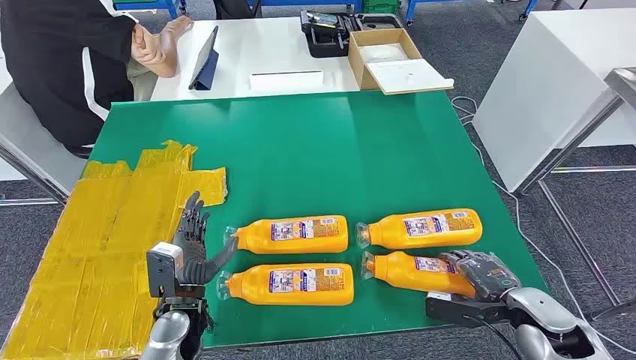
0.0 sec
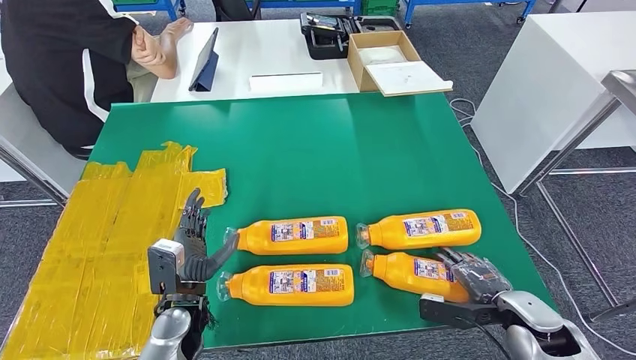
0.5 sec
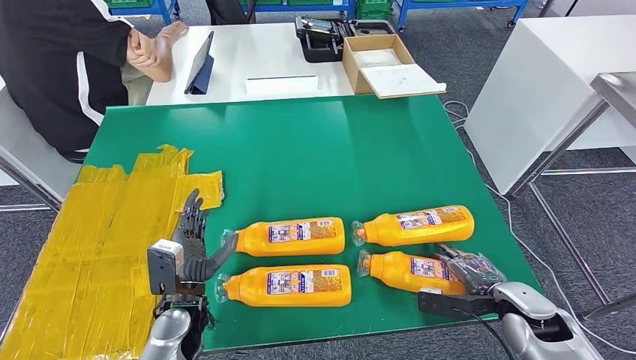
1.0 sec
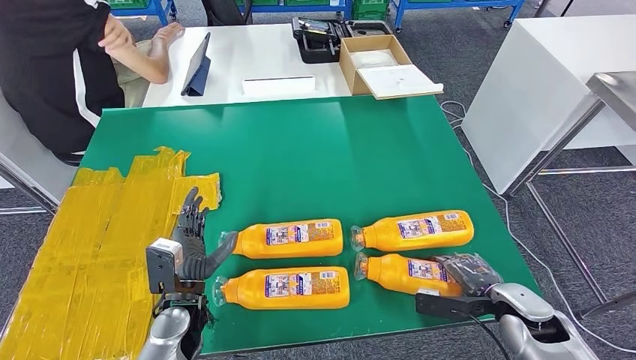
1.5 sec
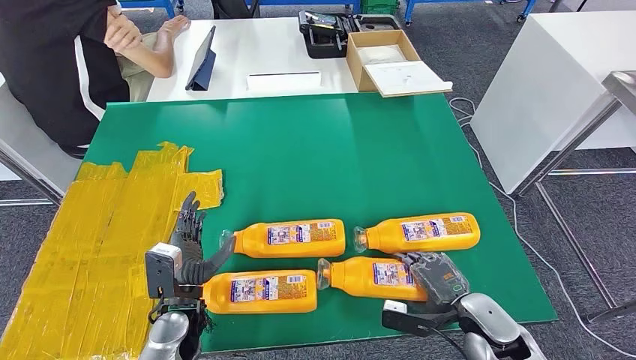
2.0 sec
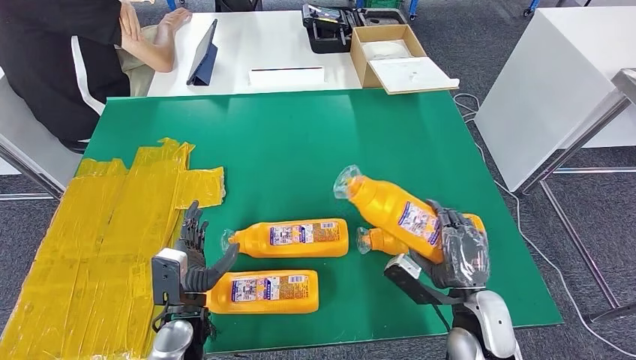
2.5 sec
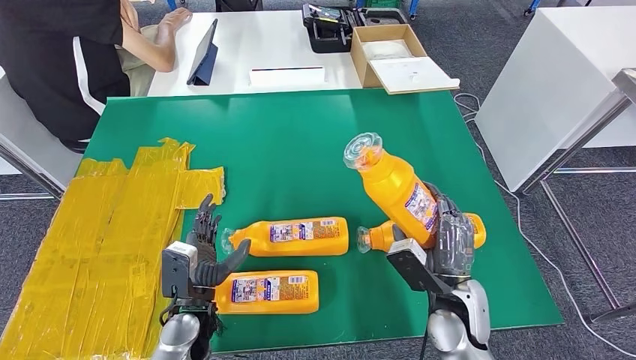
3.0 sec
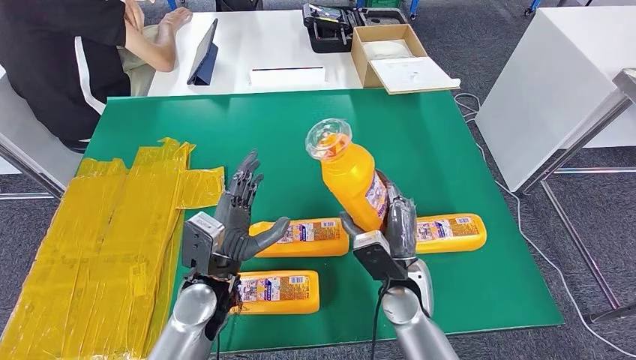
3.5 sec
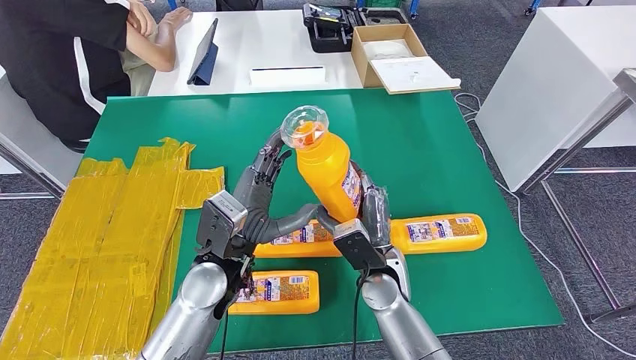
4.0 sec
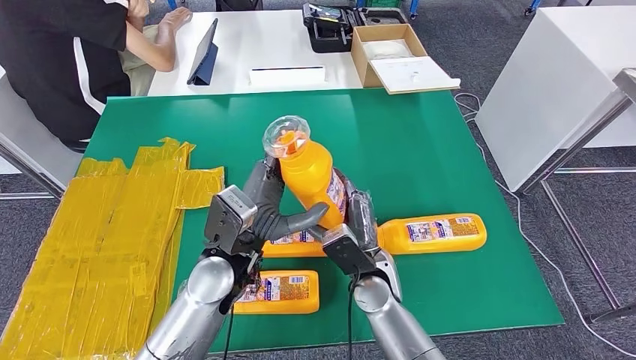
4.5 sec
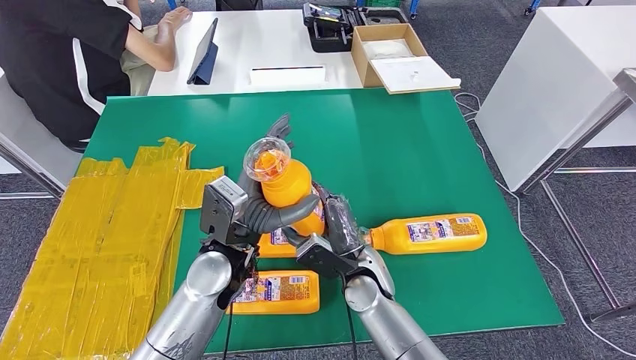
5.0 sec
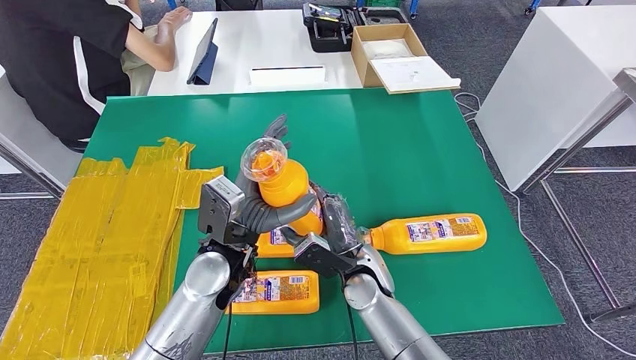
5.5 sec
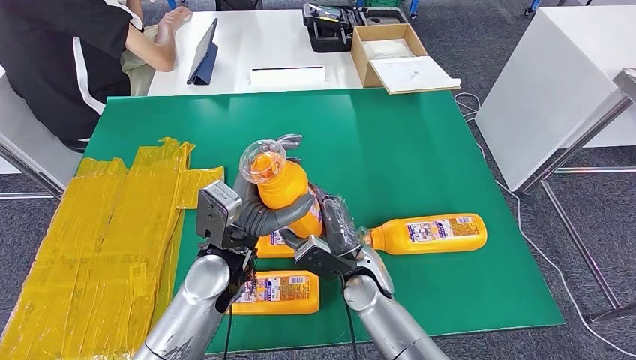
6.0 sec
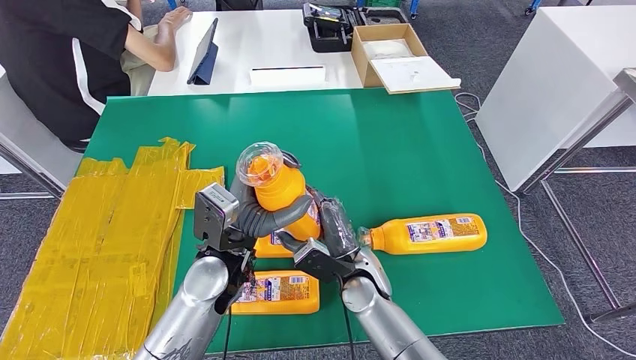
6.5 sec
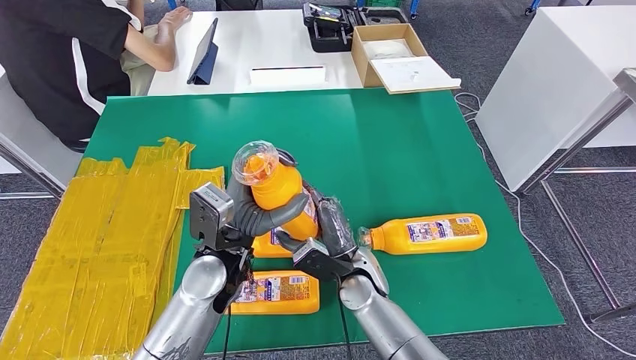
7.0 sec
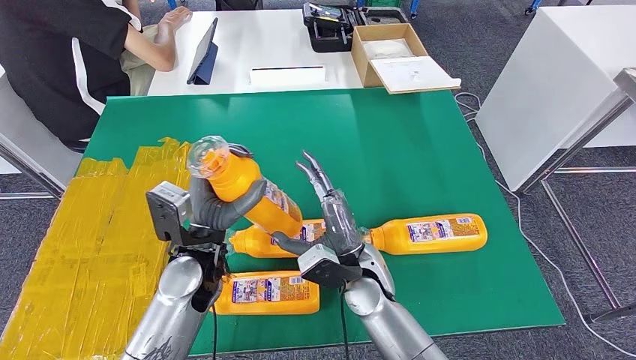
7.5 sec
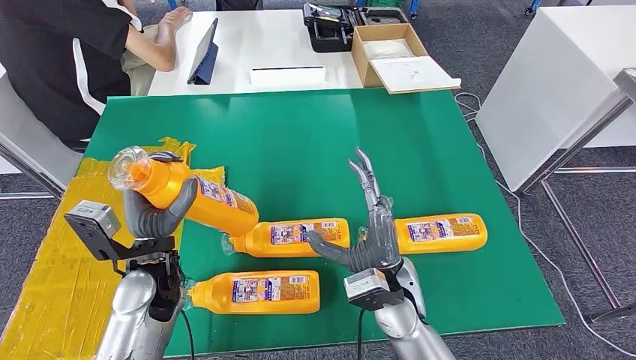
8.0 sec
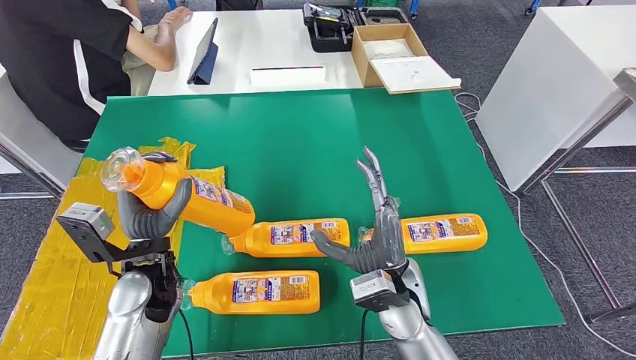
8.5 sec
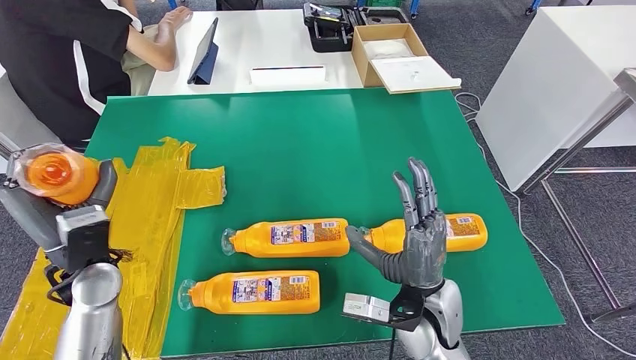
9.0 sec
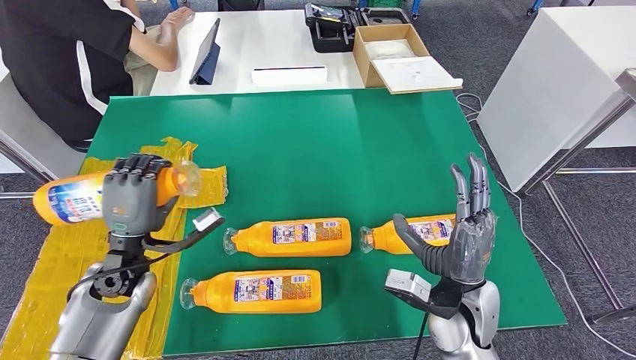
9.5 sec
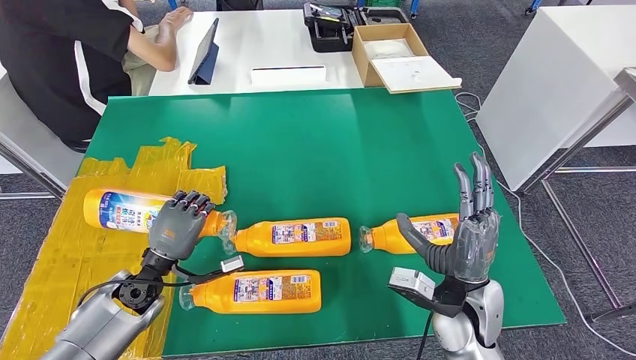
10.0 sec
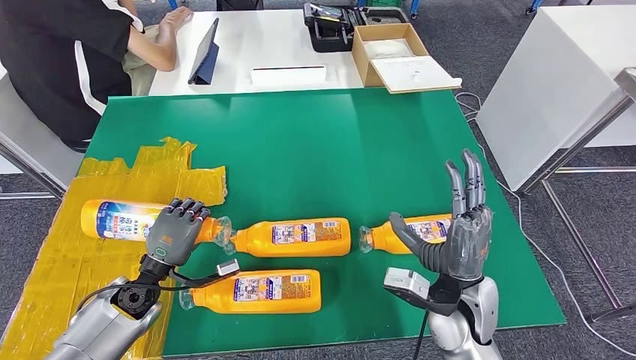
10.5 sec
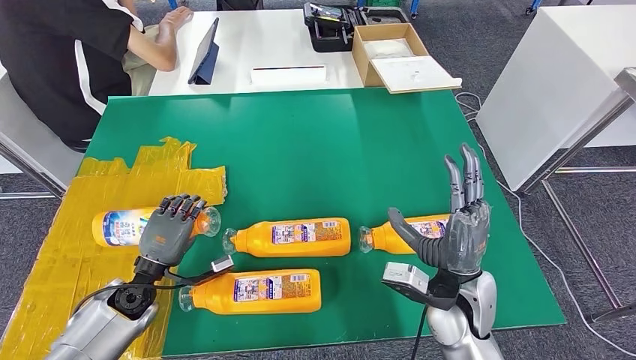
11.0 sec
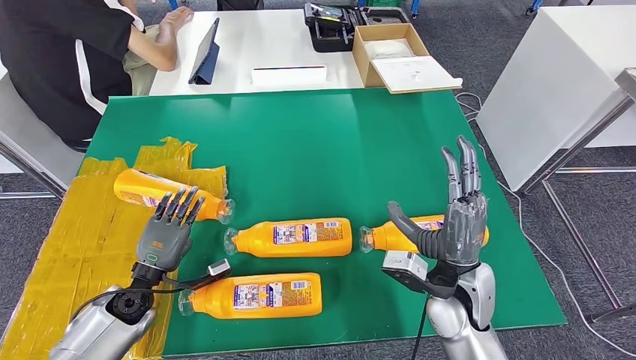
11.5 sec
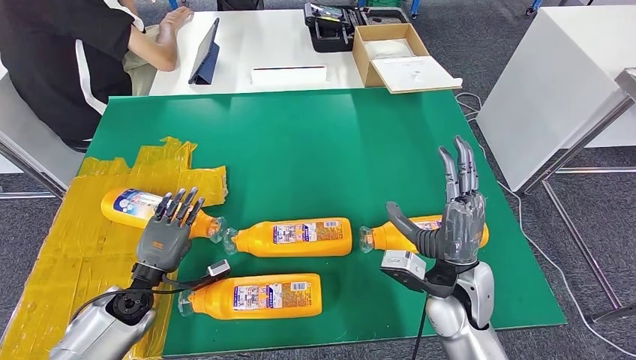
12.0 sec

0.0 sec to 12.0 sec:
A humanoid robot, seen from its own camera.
Step, 0.0 sec to 4.0 sec: Take the fast-moving consumer goods bottle from the table.
6.0 sec to 8.0 sec: The right hand is displaced upward by some 5 cm, while the left hand shifts approximately 10 cm to the left.
8.0 sec to 10.0 sec: The left hand shifts about 10 cm downward and to the left. The right hand travels to the right by roughly 10 cm.
10.0 sec to 12.0 sec: There are only small adjustments of the hands.

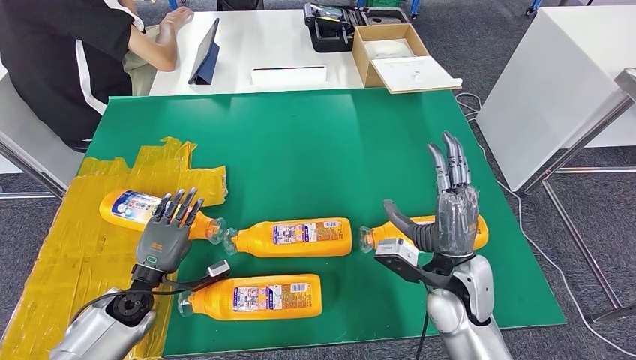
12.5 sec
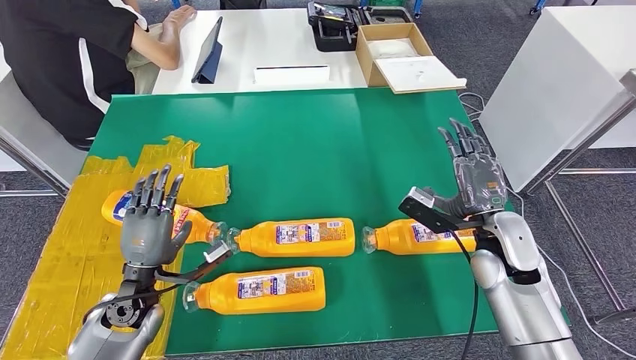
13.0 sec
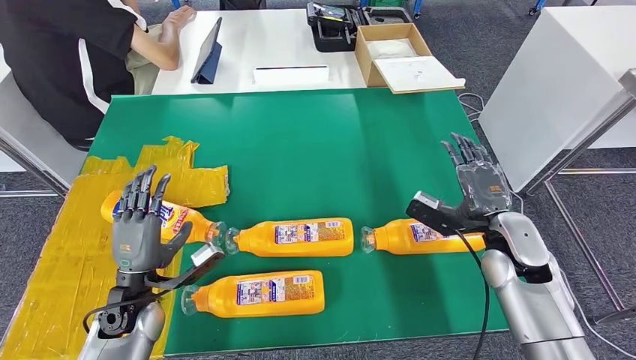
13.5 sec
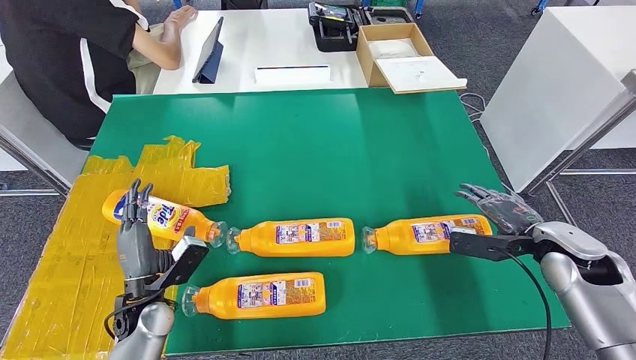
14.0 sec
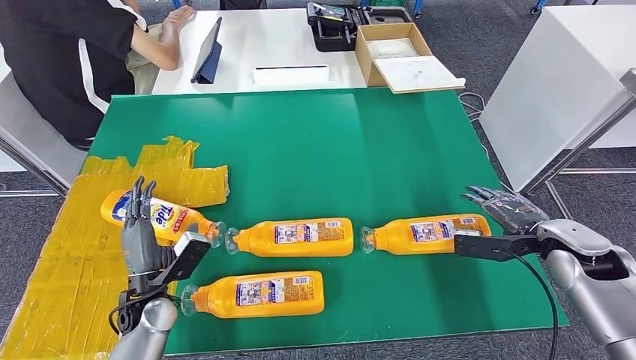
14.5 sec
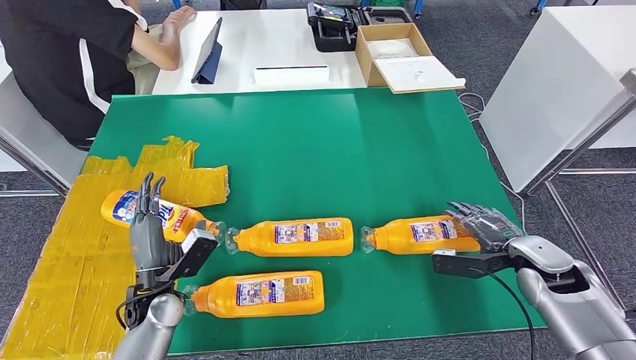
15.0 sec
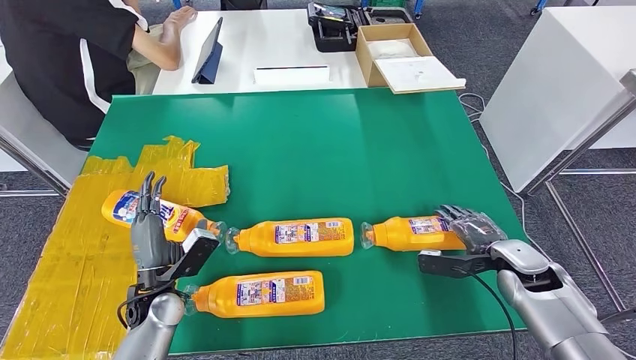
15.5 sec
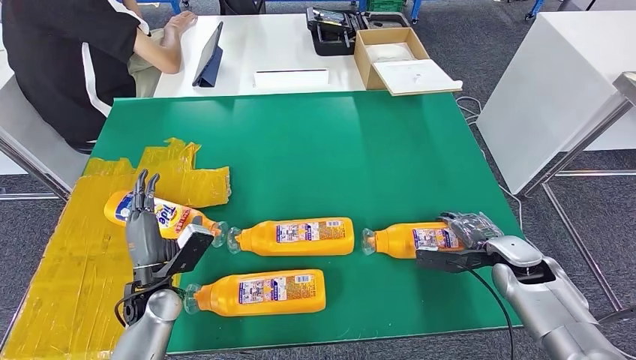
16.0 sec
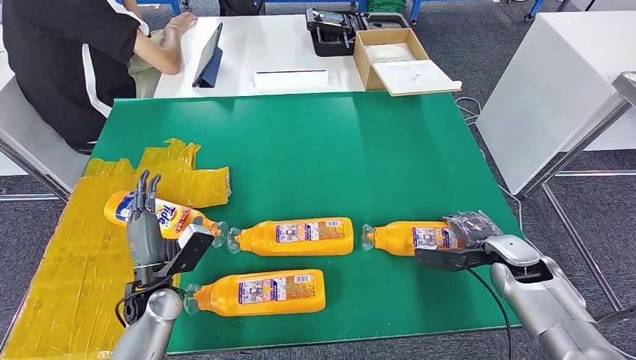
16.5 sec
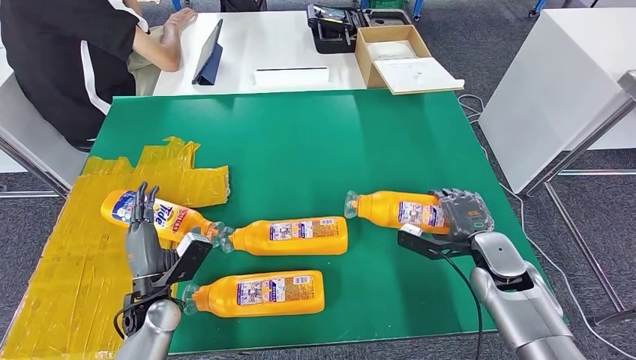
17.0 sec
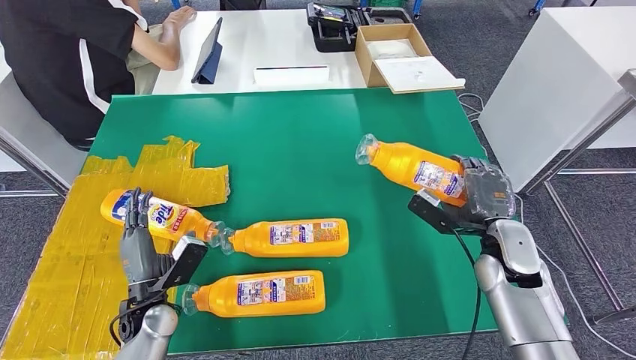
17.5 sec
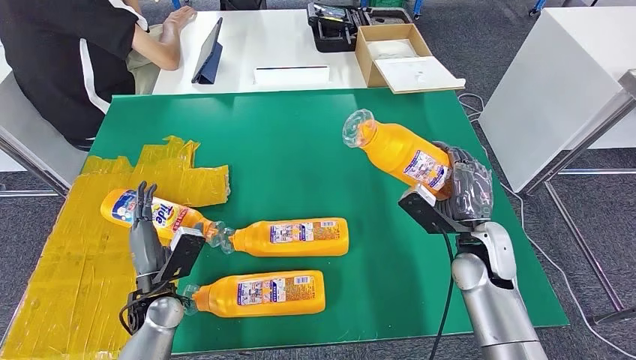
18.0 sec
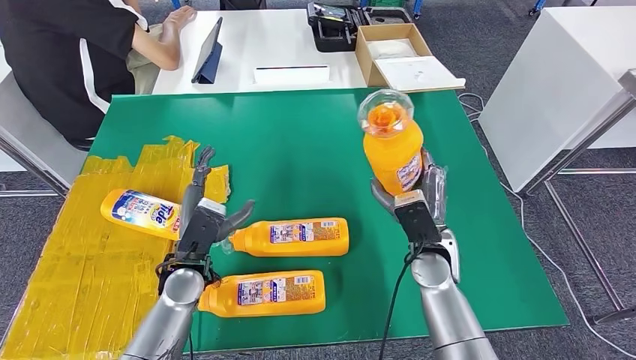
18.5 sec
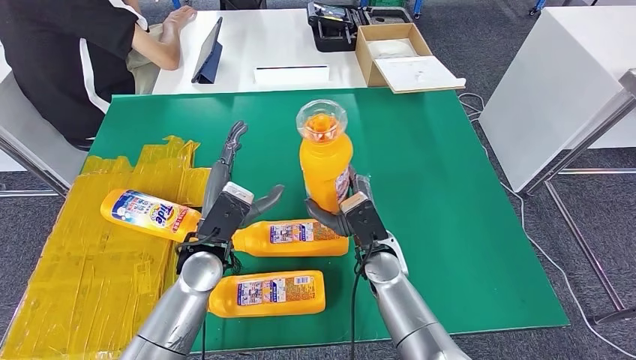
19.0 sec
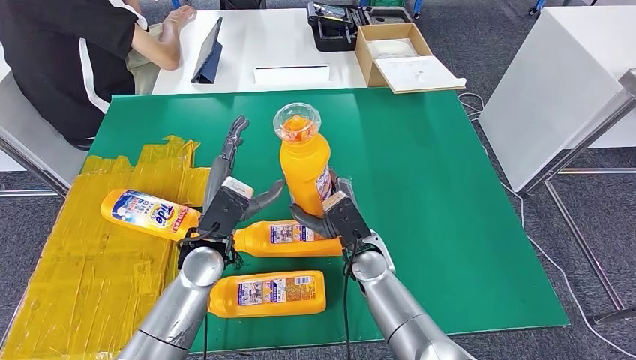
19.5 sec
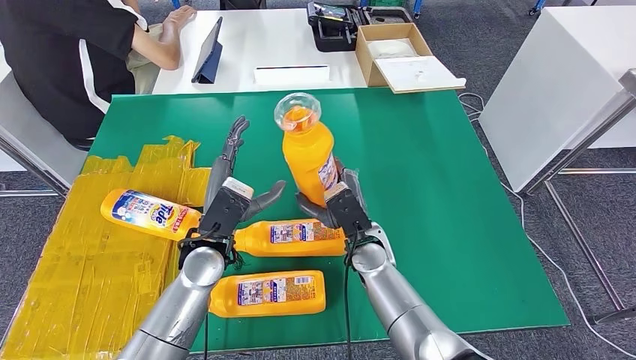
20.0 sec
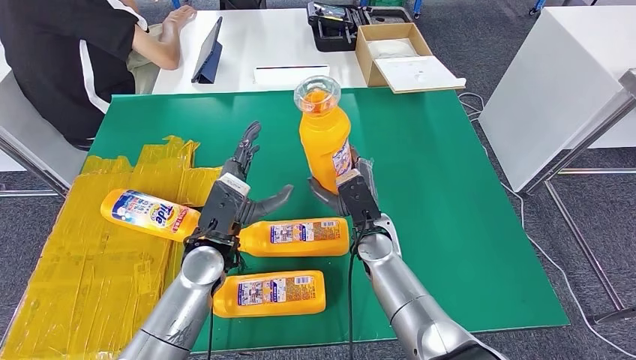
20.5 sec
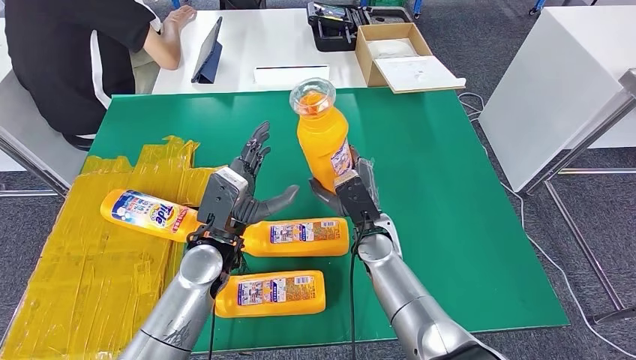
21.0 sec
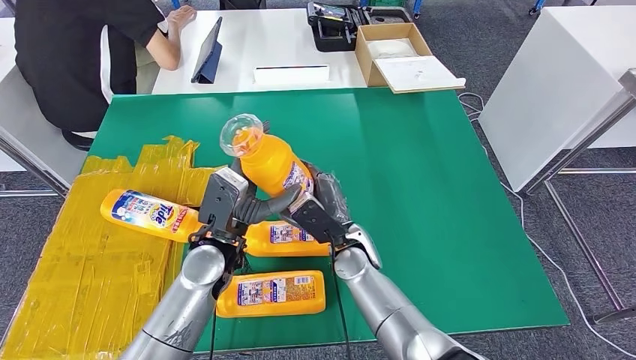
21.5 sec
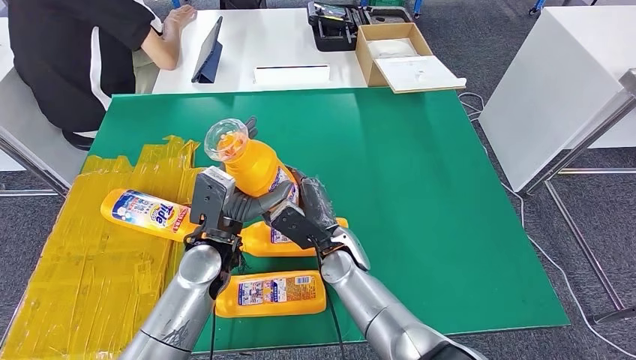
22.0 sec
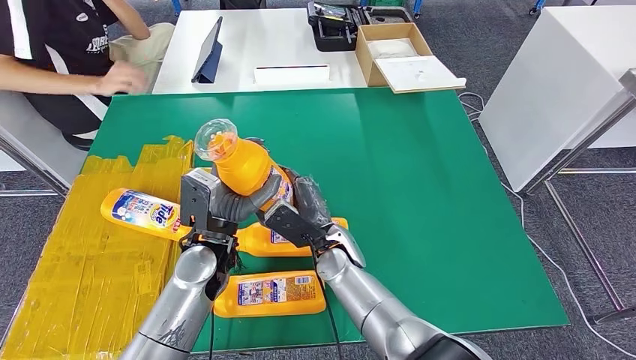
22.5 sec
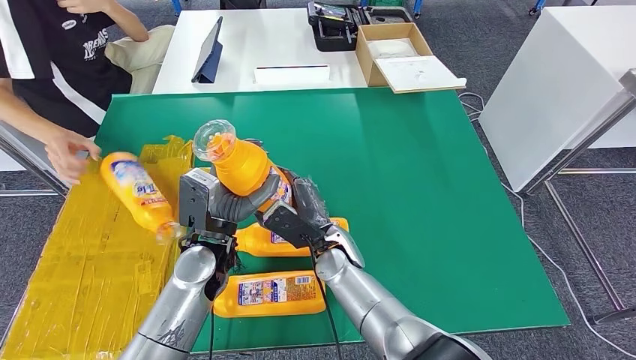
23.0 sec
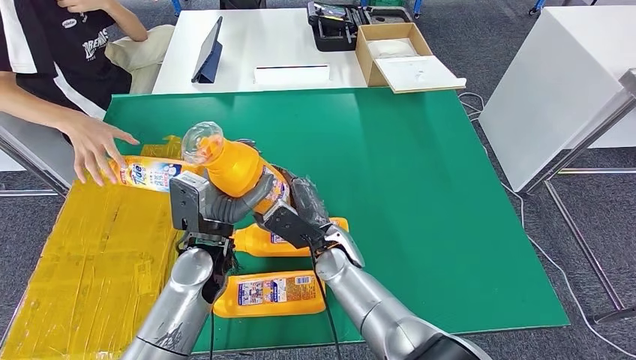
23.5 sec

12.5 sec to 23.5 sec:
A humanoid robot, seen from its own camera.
Step, 16.5 sec to 21.5 sec: Pick up the fast-moving consumer goods bottle from the table.
20.0 sec to 21.5 sec: There are only small adjustments of the hands.
